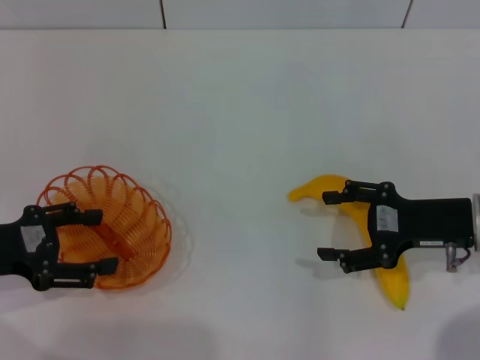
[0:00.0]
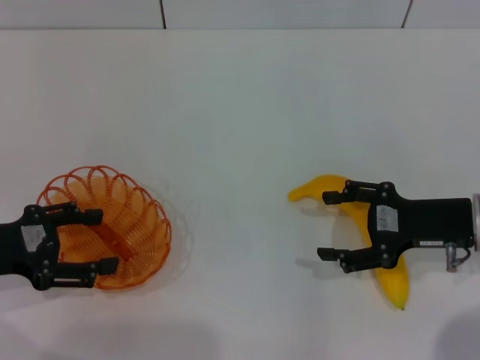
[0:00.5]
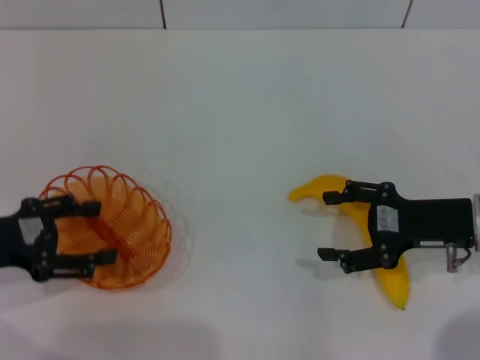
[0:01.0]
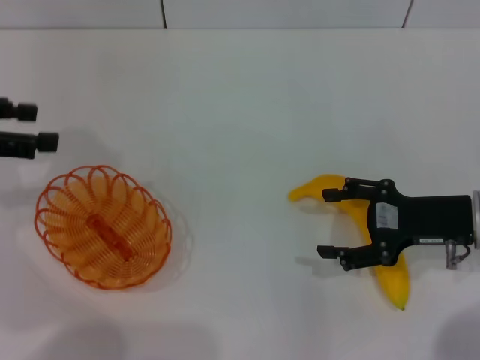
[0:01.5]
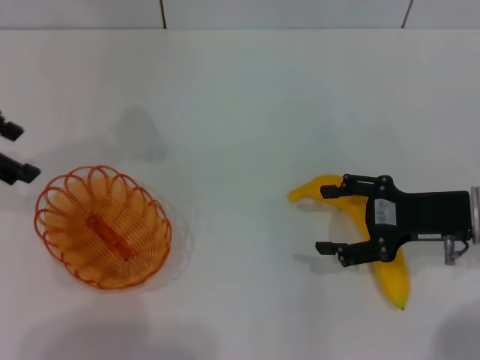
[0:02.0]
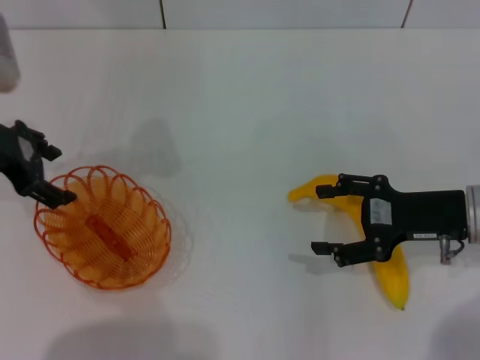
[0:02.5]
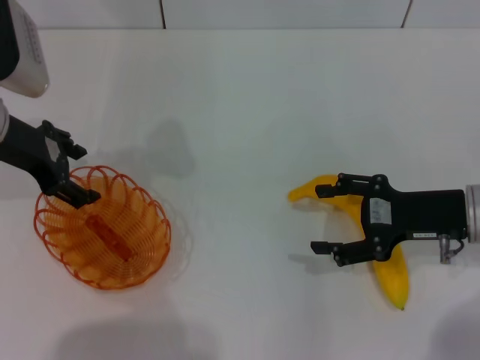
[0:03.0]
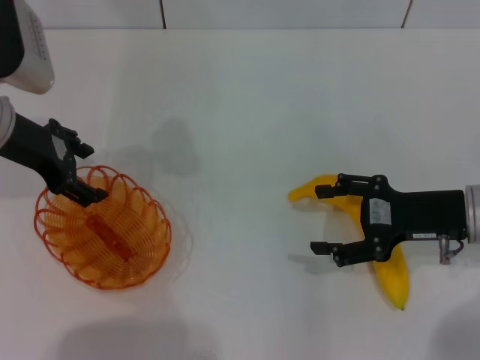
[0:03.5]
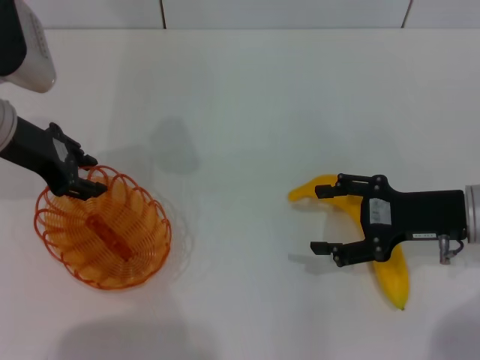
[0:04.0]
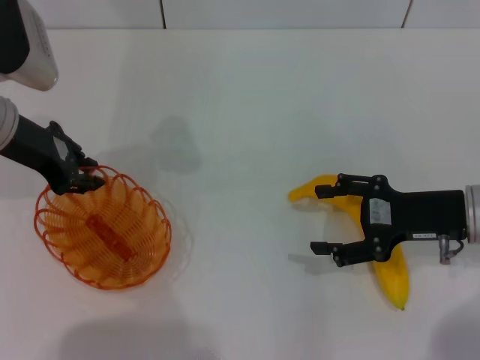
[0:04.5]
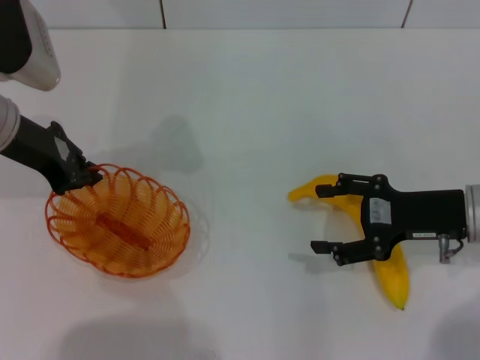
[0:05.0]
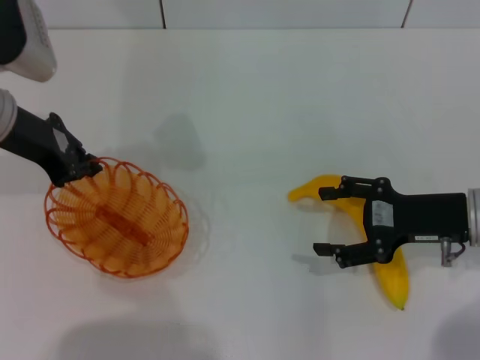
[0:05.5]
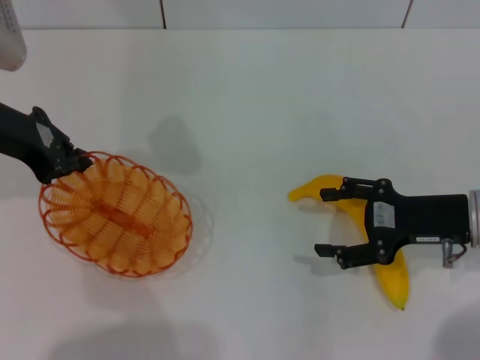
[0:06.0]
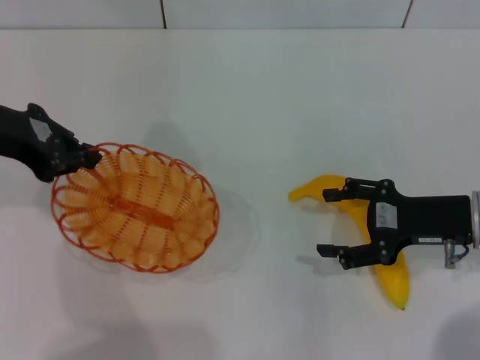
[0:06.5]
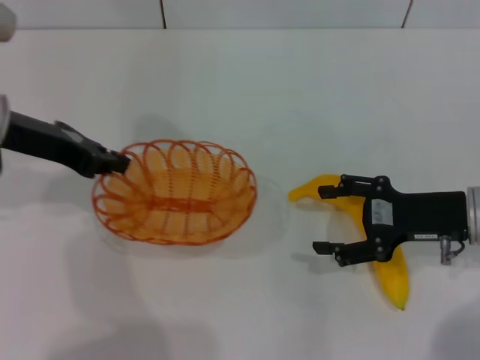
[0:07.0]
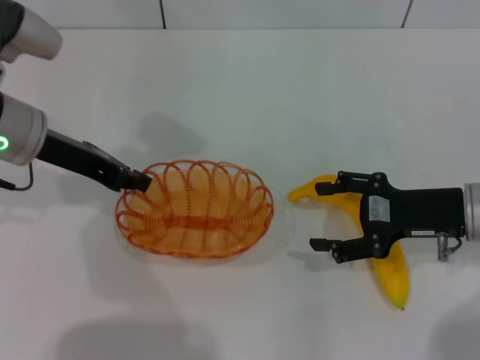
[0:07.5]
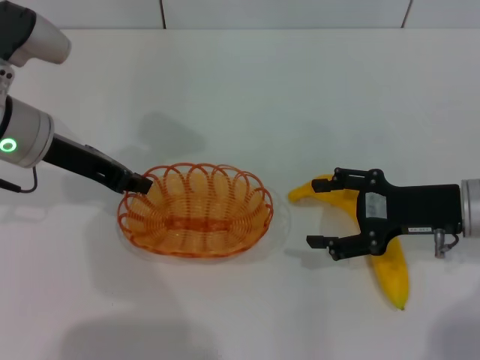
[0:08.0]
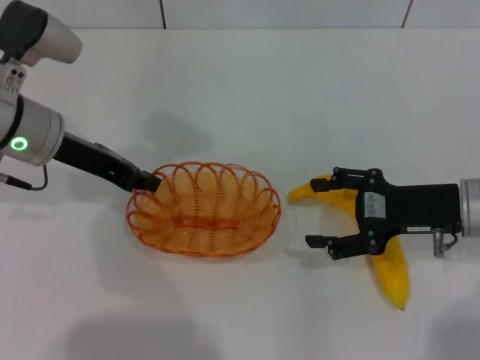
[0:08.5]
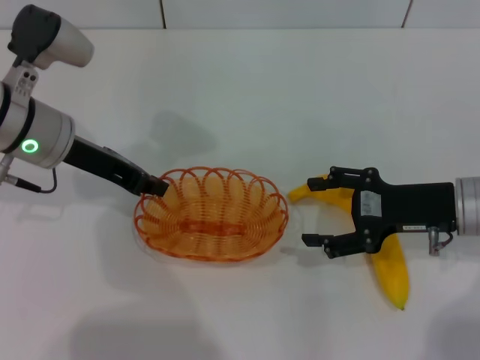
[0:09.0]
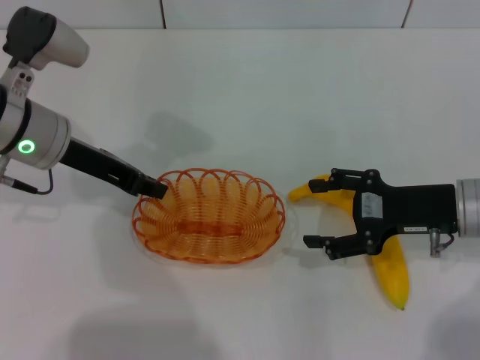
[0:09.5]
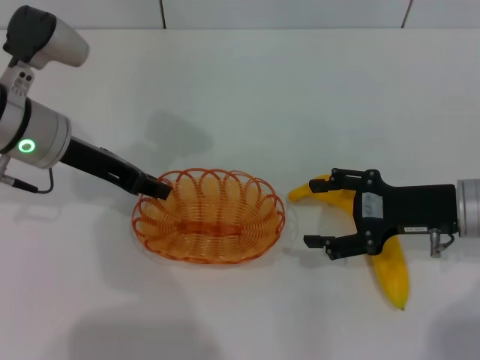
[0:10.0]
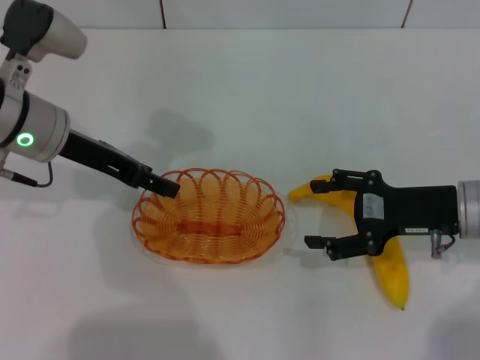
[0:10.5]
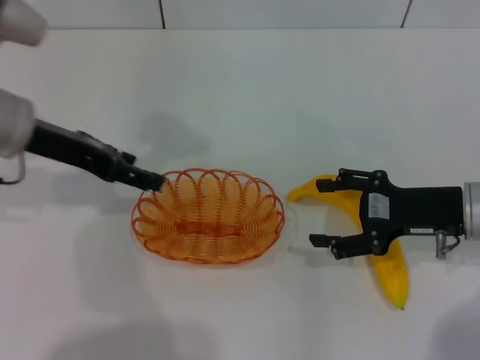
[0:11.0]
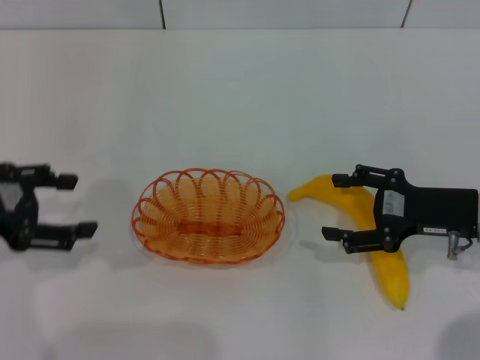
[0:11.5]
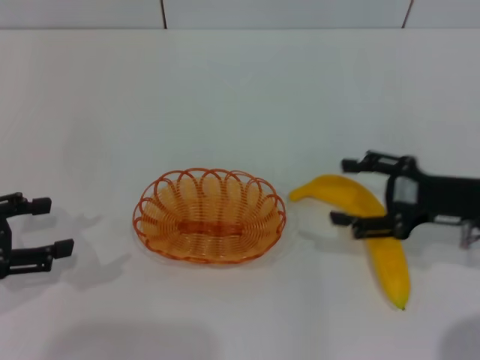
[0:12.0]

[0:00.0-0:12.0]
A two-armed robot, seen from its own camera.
Step, 0:00.0 to 0:06.0: Pick up the basket with the left gripper.
Step, 0:06.5 to 0:11.0: Place the basket in the center of view with the left gripper.
0:00.0 to 0:02.0: The left gripper moves upward and forward, approximately 15 cm.
0:02.0 to 0:04.0: The left gripper is displaced to the right and downward by roughly 10 cm.
0:04.0 to 0:06.0: The left gripper closes up.
0:06.0 to 0:08.0: The left gripper ends up roughly 5 cm from where it was.
0:08.0 to 0:10.0: There are only small adjustments of the grippers.
0:10.0 to 0:12.0: The left gripper shifts roughly 20 cm to the left and backward, and opens up.

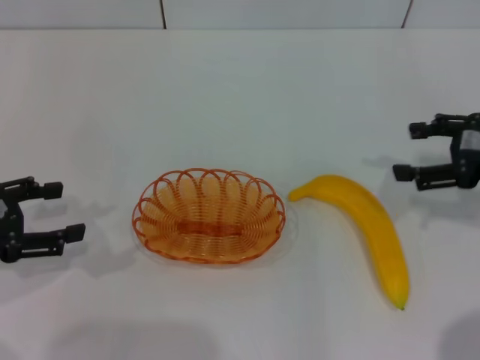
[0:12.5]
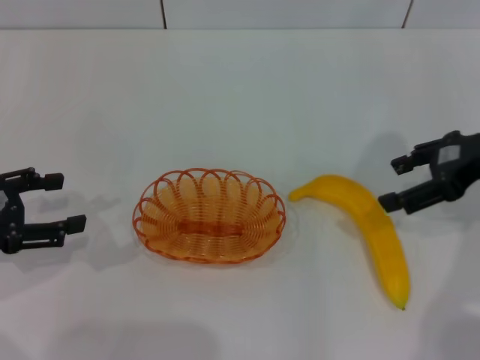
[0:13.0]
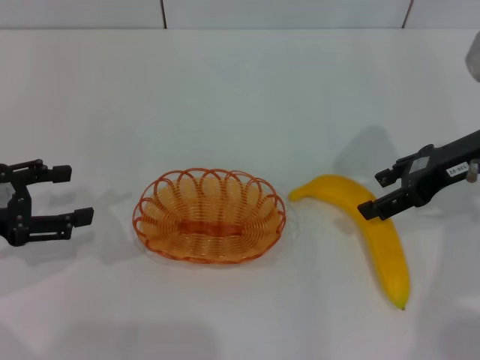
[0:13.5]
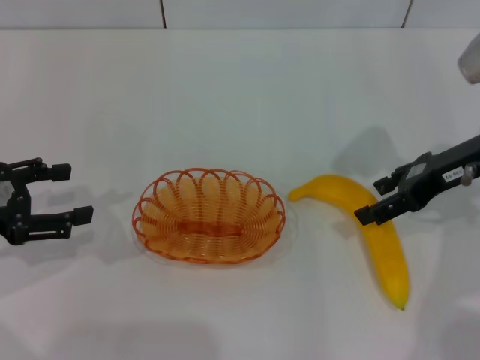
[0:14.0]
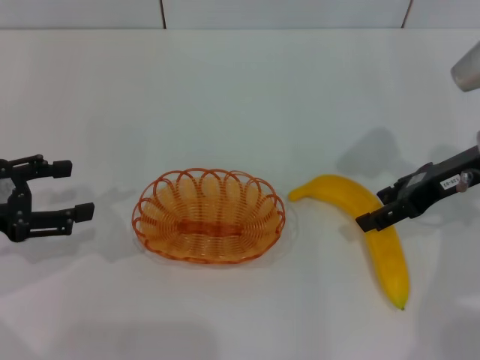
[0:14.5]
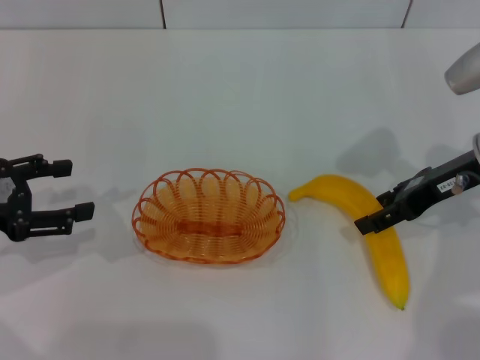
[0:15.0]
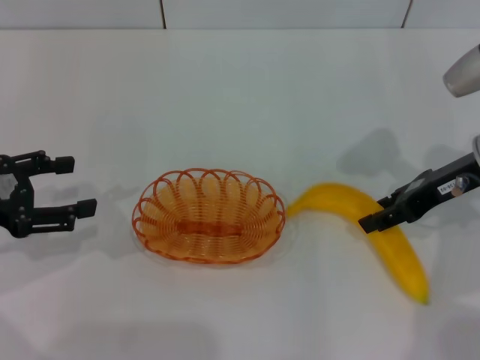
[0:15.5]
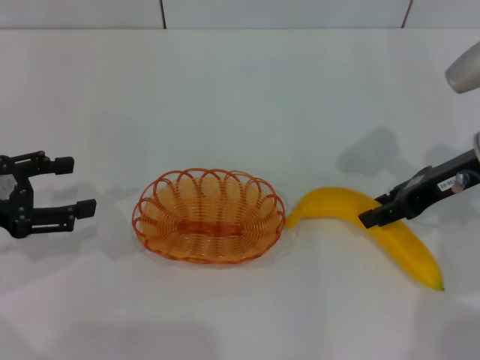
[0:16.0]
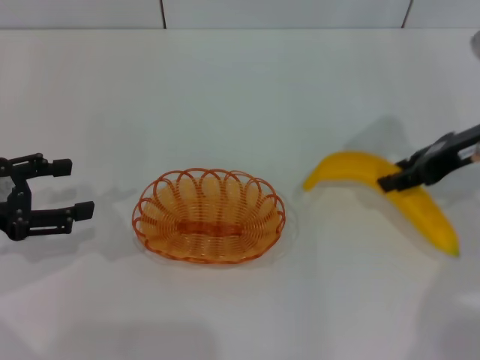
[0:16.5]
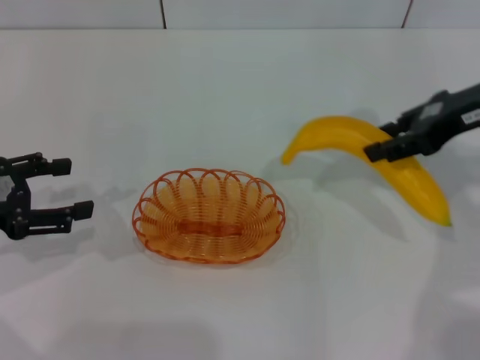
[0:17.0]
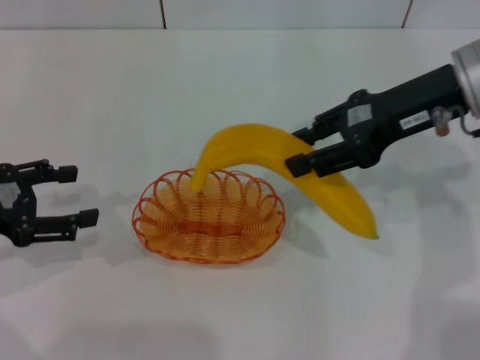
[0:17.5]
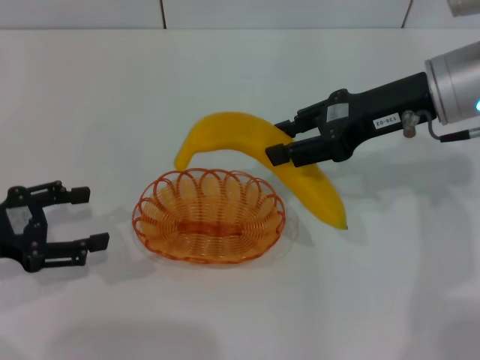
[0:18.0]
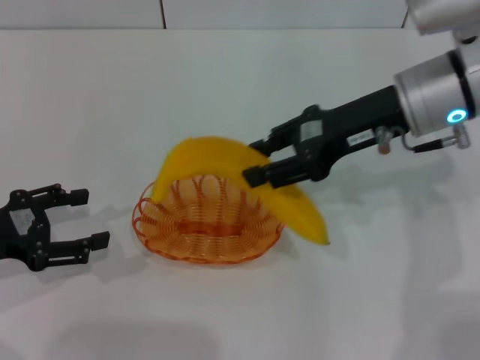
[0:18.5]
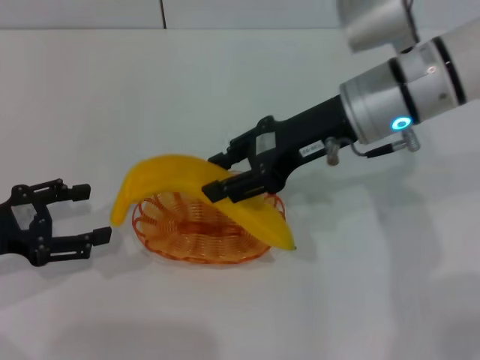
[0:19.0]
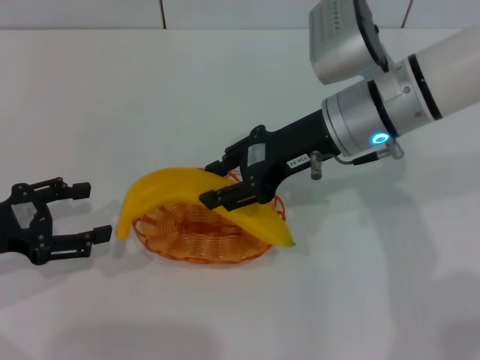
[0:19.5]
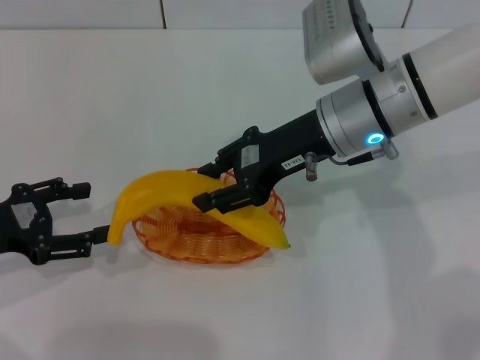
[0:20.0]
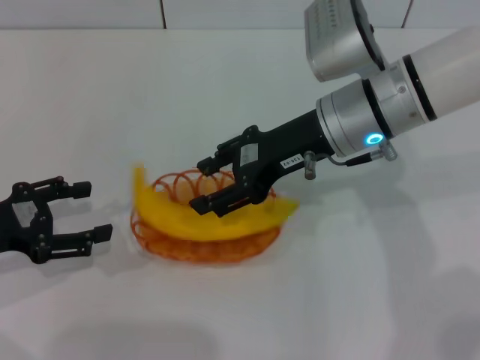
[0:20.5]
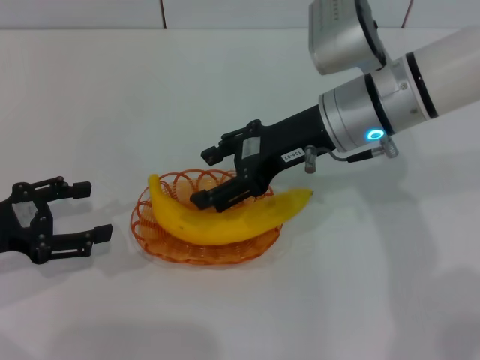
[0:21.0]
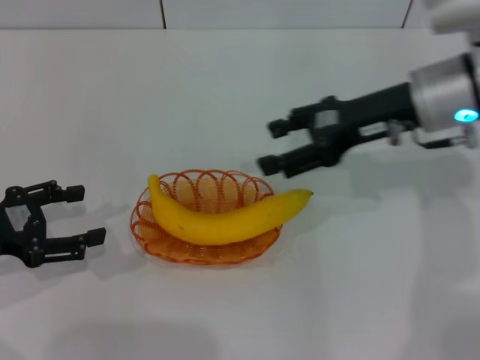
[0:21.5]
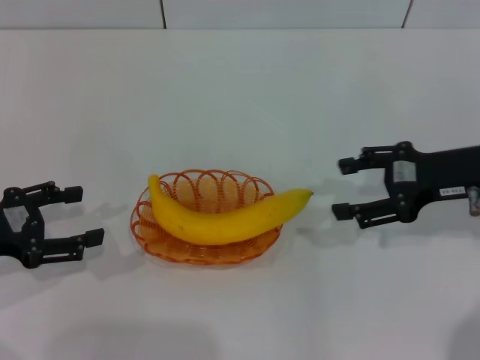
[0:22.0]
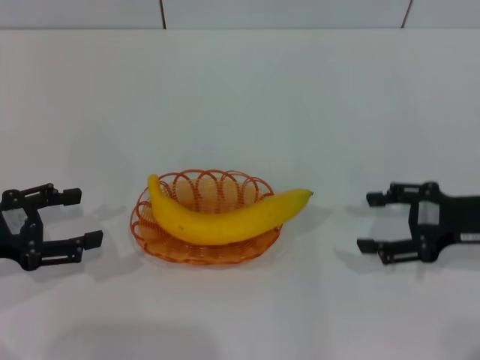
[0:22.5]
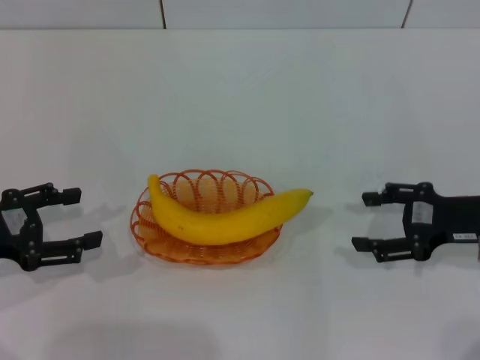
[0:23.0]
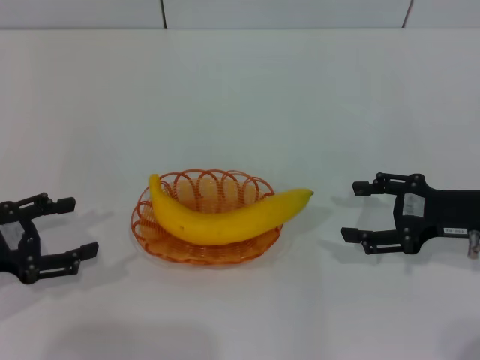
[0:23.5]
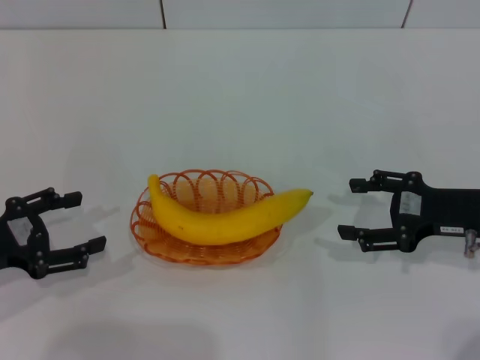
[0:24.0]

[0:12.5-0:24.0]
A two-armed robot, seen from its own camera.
Step, 0:12.5 to 0:17.0: Pick up the banana with the right gripper.
Step, 0:17.5 to 0:20.5: Place the banana into the basket with the right gripper.
0:12.5 to 0:14.5: The right gripper is displaced to the left by about 5 cm.
0:14.5 to 0:16.5: The right gripper closes its fingers.
0:16.5 to 0:18.5: The right gripper moves to the left, about 10 cm.
0:18.5 to 0:20.0: The right gripper goes about 5 cm to the left.
0:20.0 to 0:22.0: The right gripper heads to the right, covering roughly 15 cm, and opens its fingers.
0:22.0 to 0:24.0: The right gripper shifts approximately 5 cm downward.

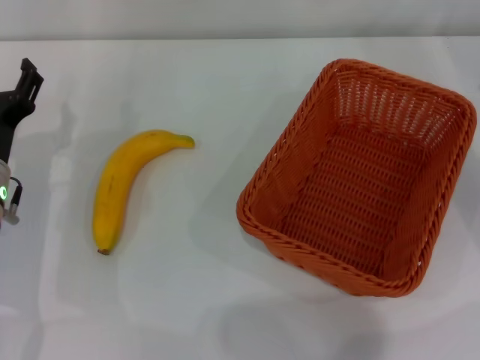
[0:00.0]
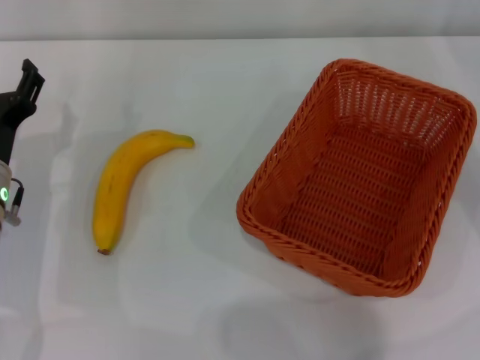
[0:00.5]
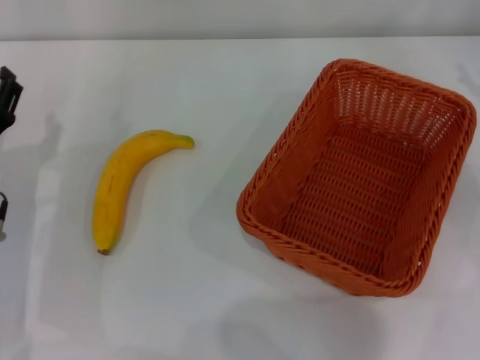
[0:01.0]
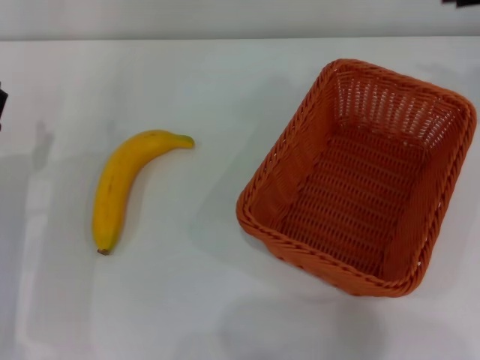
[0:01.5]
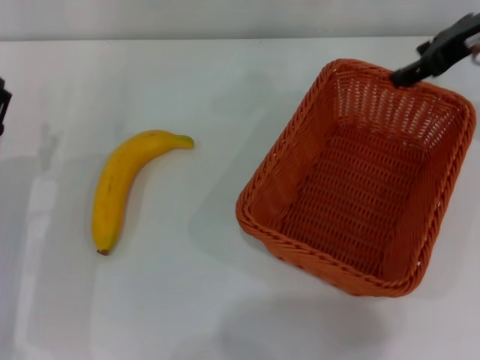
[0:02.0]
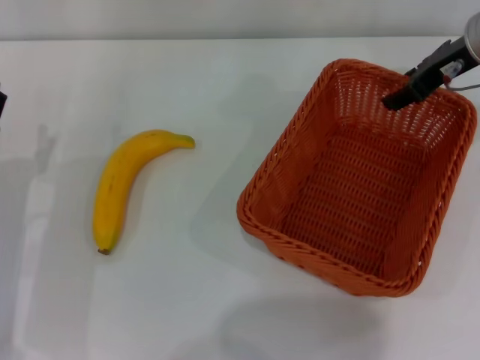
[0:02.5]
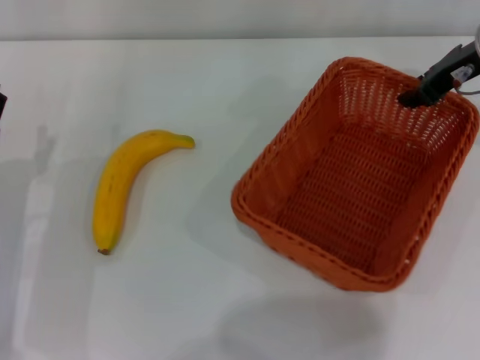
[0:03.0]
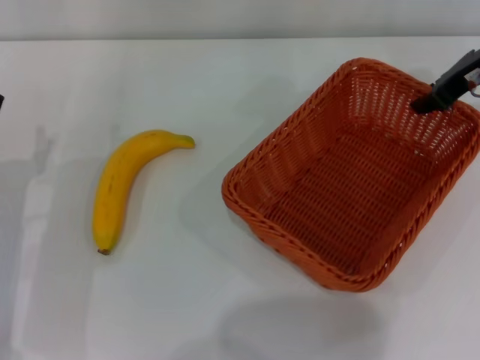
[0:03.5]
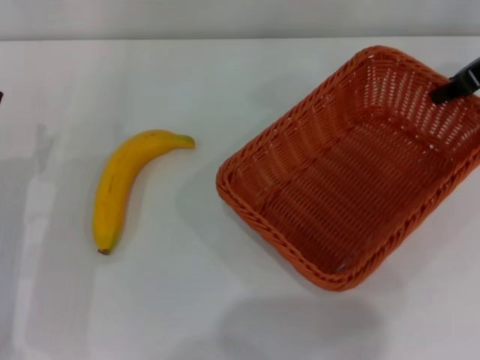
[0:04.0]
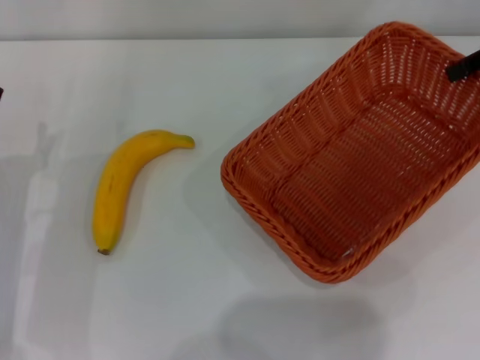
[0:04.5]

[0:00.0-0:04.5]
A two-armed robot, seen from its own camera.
Step, 0:00.0 to 0:04.0: Pick up the light basket with the right gripper.
0:00.0 to 0:02.0: The right gripper moves upward, to the left and forward, some 20 cm.
0:02.0 to 0:04.5: The right gripper goes roughly 5 cm to the right, and closes up.
